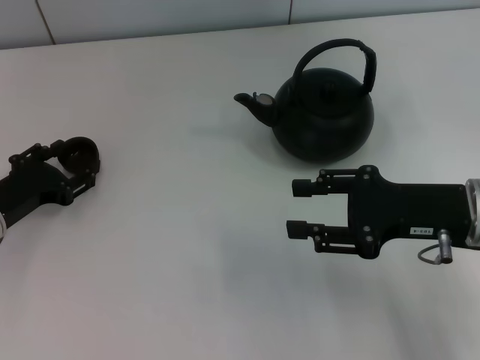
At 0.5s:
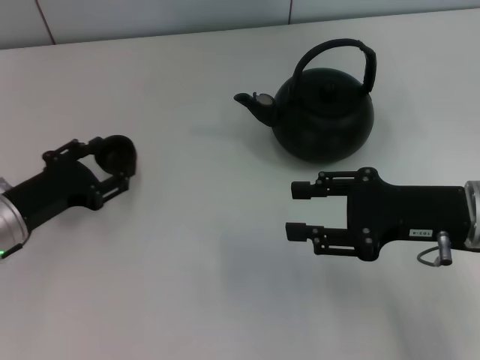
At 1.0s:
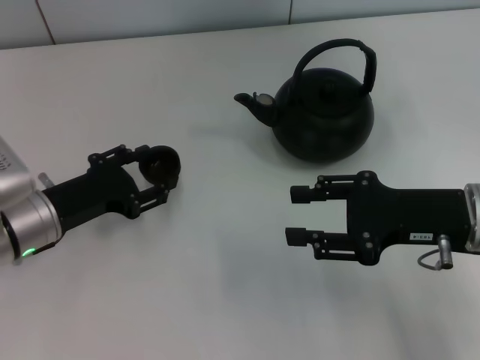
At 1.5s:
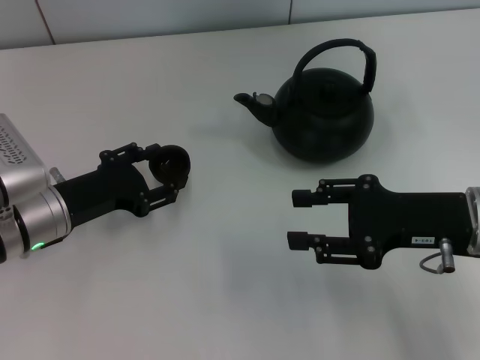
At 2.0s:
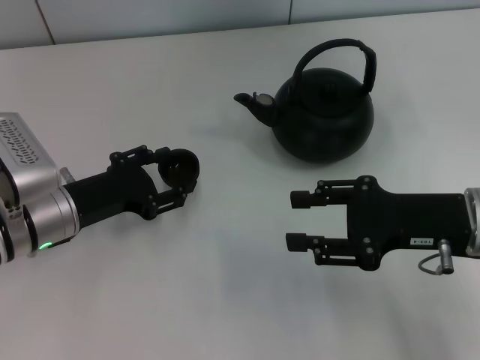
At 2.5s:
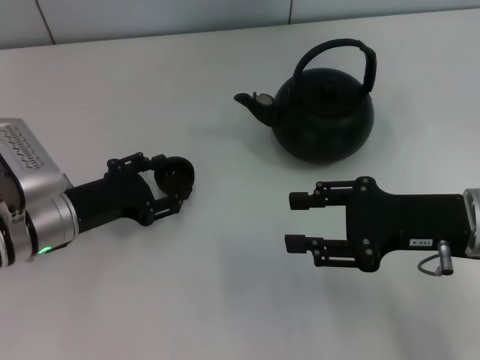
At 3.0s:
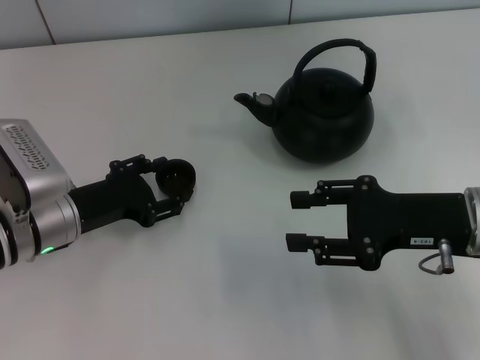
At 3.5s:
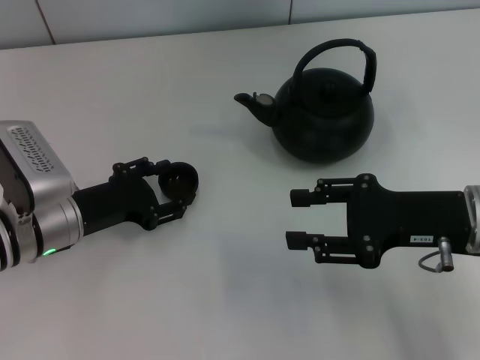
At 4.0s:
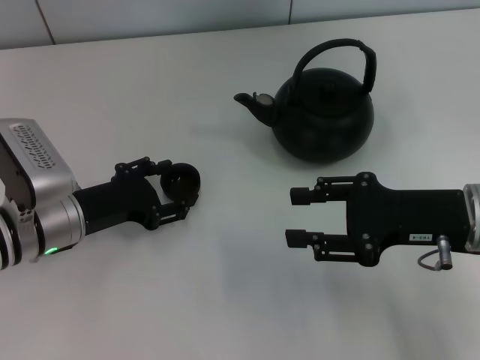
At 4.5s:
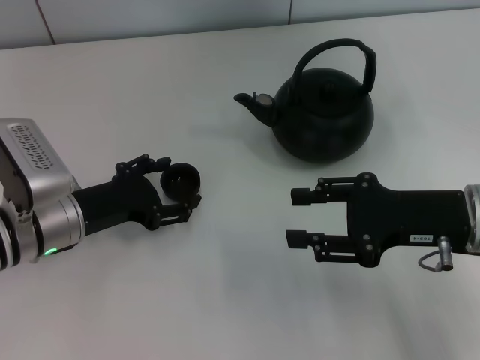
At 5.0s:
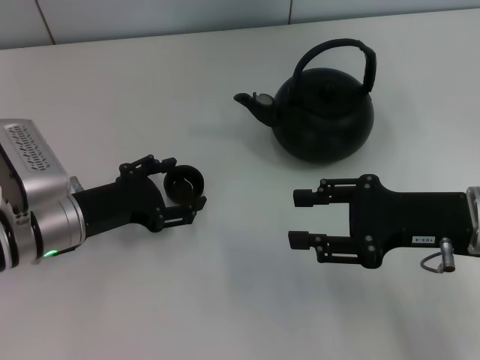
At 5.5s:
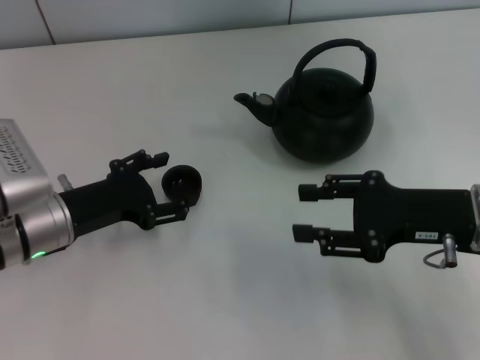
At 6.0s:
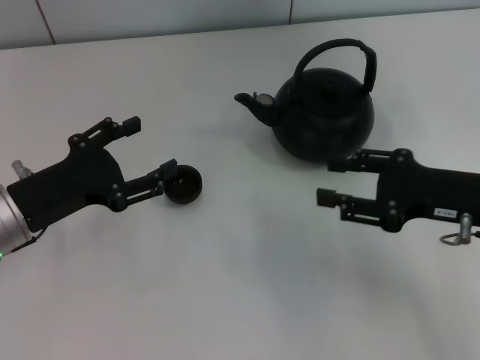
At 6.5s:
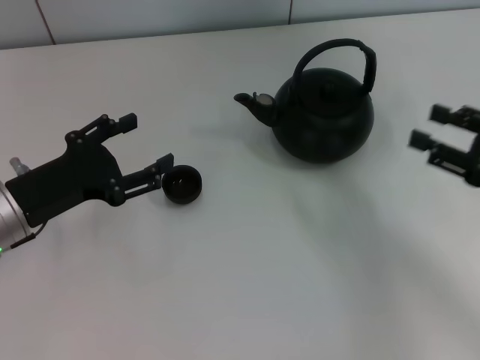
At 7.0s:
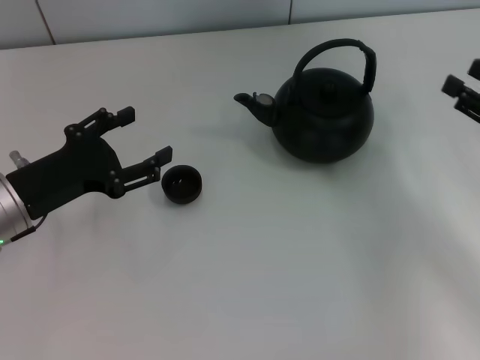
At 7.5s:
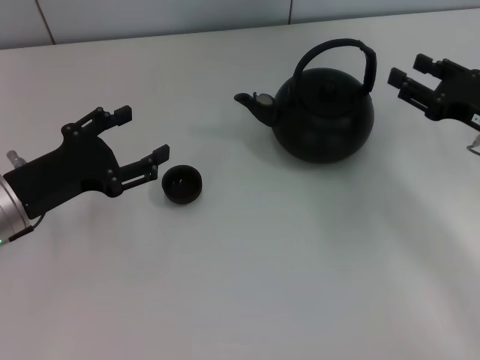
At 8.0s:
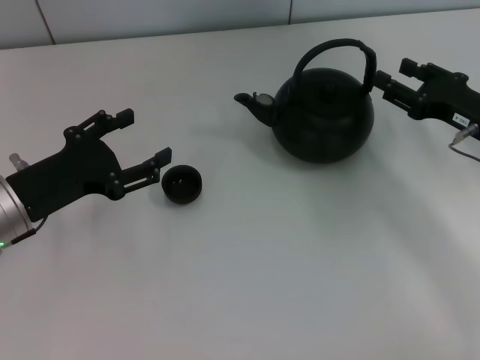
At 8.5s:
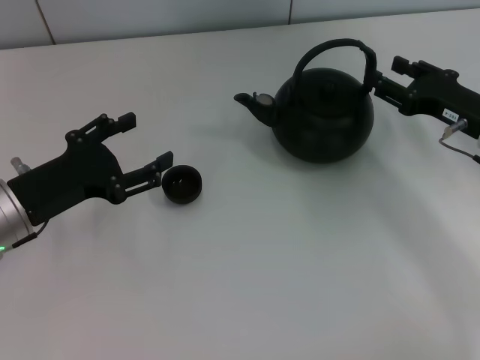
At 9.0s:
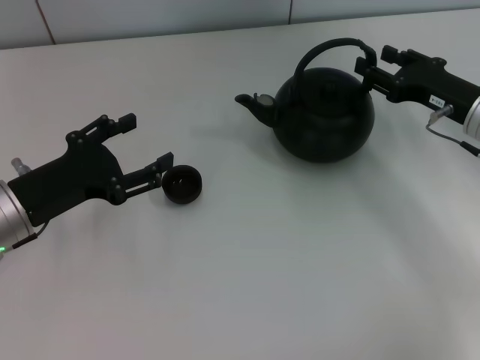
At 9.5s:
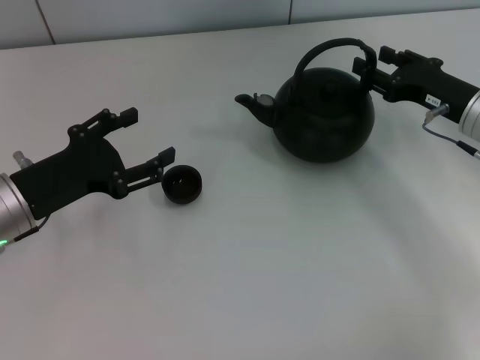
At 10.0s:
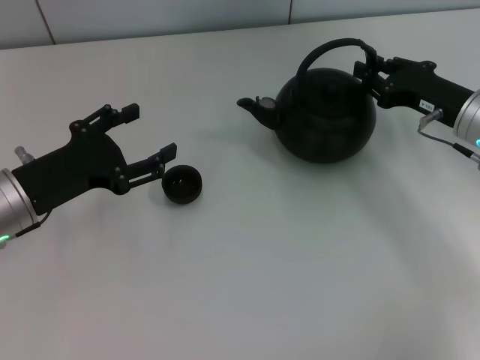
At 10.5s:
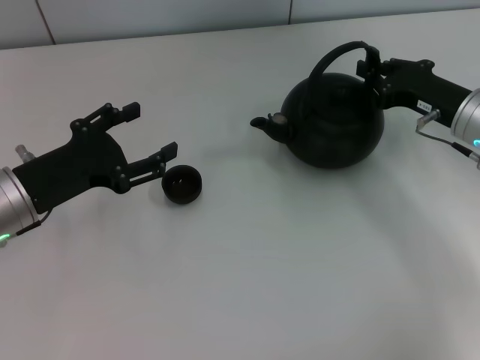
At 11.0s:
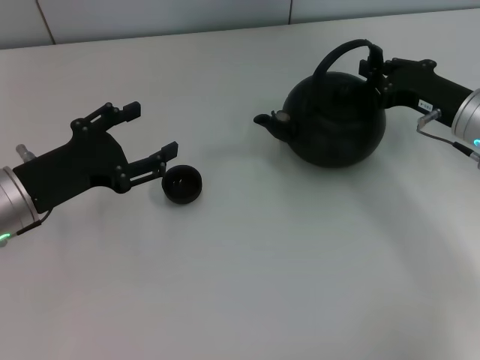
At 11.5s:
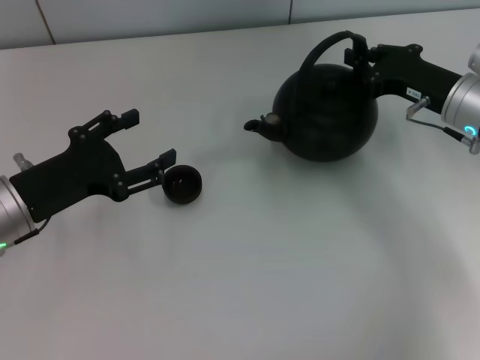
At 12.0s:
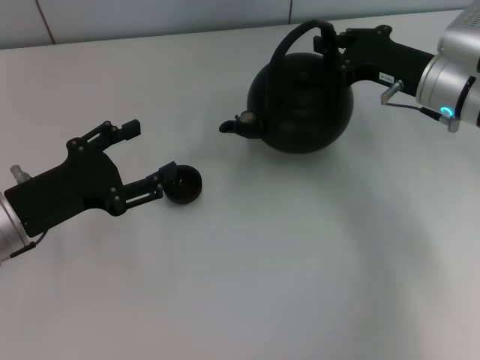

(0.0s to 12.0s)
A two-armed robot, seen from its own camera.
Task of the whole recording: Grasp the handle of the teapot with one hand and pour tea into the teacup.
Step, 1.0s - 6.5s: Place the teacup in the center of view with the left gripper.
0.0s - 2.0s: The left gripper goes about 5 cm to the right.
2.0s - 4.0s: Both grippers stay put.
4.0s - 6.0s: The left gripper moves roughly 5 cm, and opens.
6.0s - 8.0s: The right gripper heads forward, covering roughly 5 cm.
8.0s - 10.0s: The grippers stay close to where they were, moving slightly.
10.0s - 12.0s: The right gripper ends up some 5 cm from where it was, and closes.

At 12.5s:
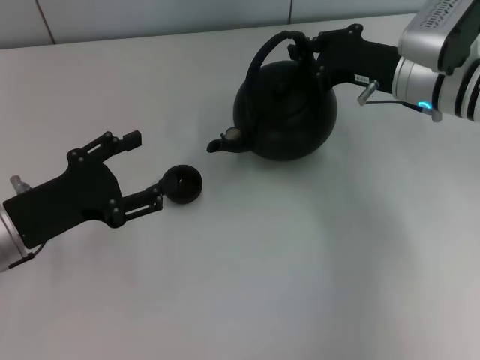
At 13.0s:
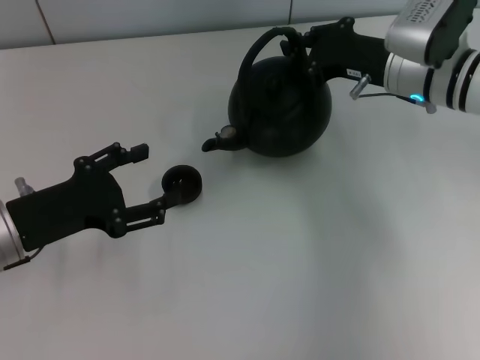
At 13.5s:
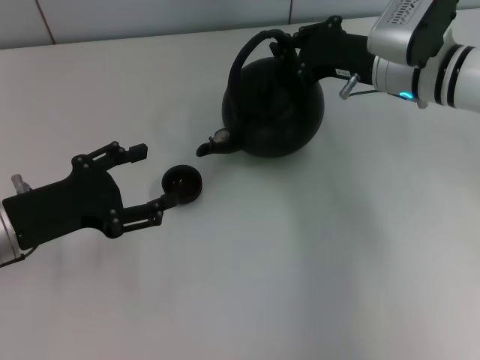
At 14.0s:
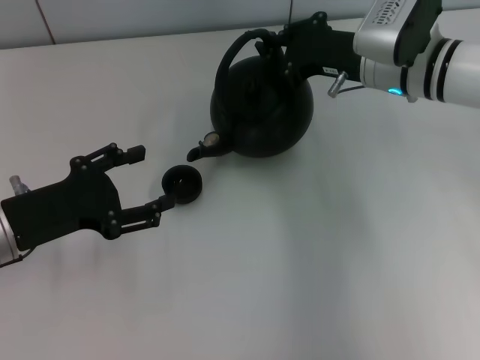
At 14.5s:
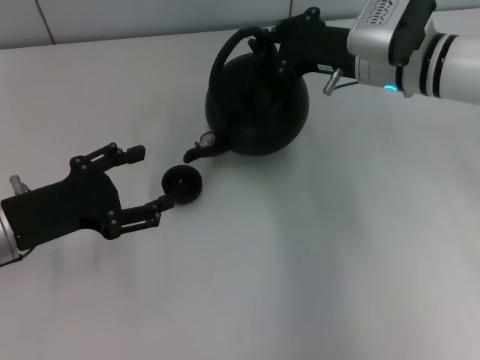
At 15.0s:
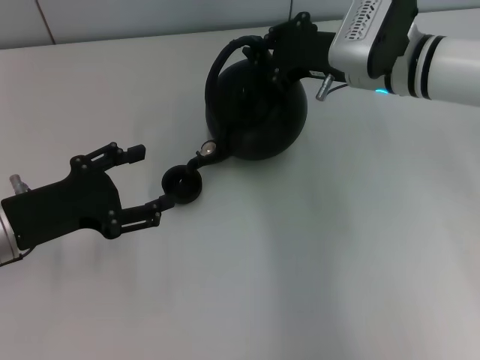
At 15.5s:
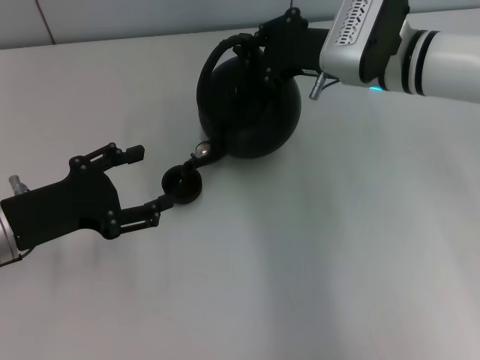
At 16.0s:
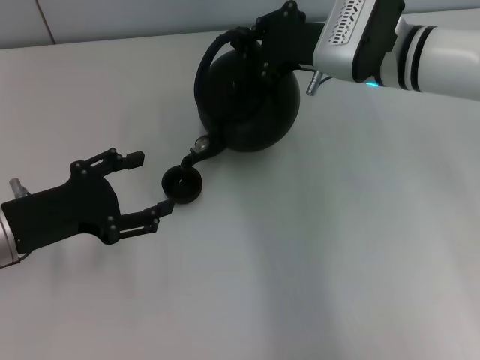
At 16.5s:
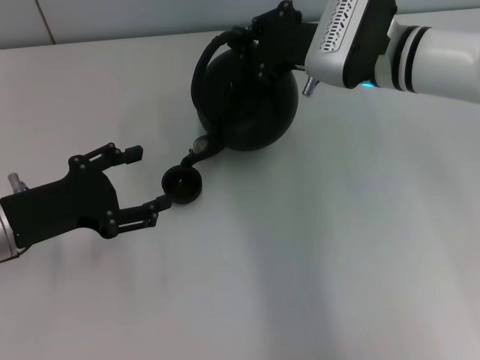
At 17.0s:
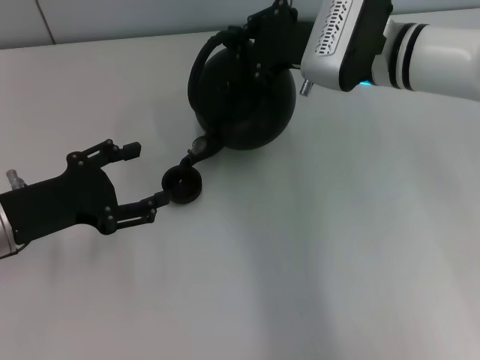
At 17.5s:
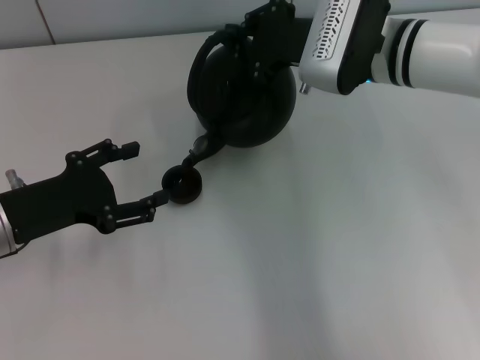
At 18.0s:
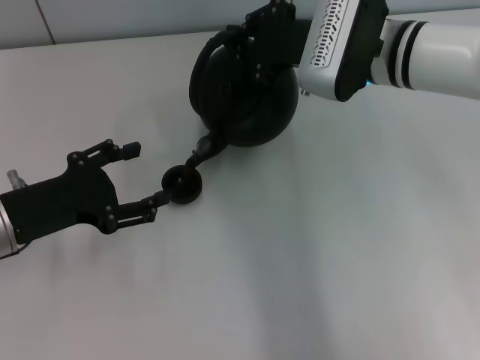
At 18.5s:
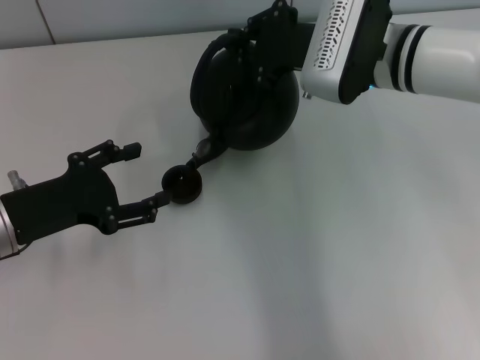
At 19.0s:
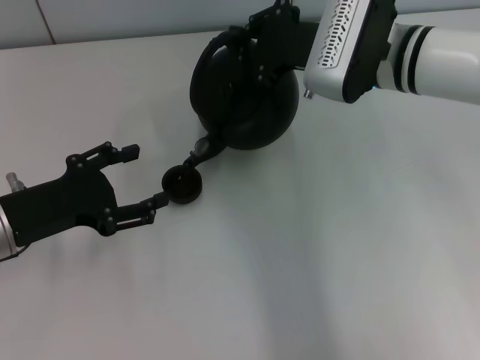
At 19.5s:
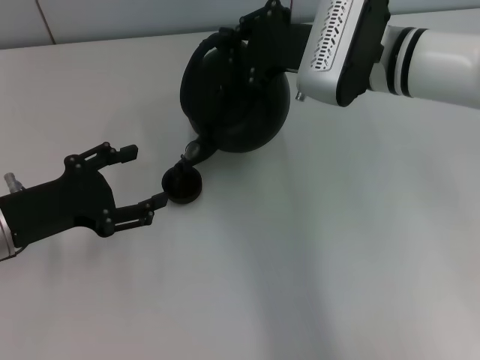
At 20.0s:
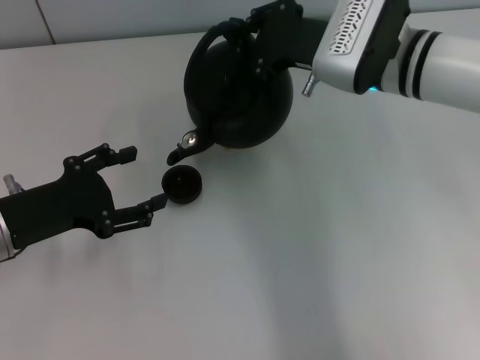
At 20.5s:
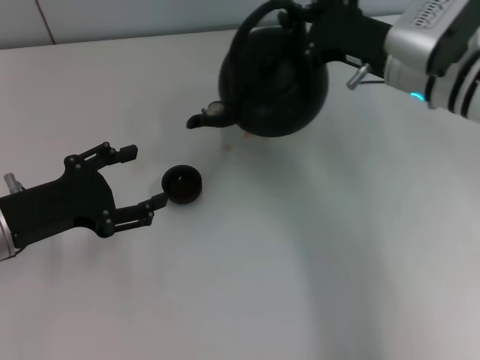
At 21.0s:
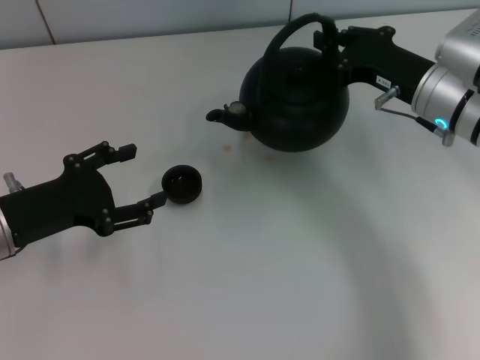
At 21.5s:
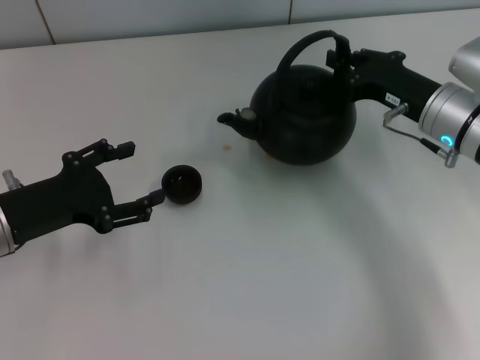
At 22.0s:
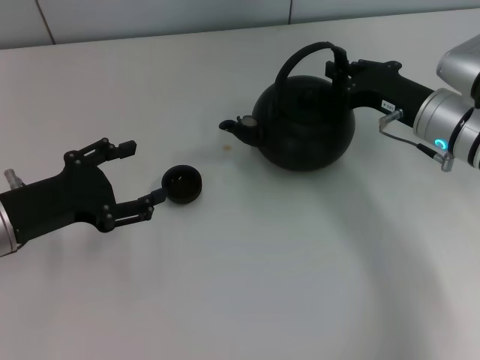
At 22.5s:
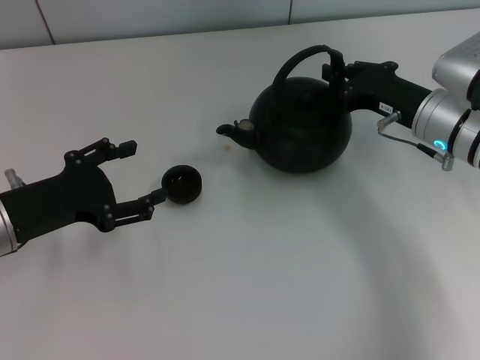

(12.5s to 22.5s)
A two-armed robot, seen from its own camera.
Task of the whole recording: Grasp the handle of the teapot with one hand and pour tea into the teacup.
12.5s - 14.5s: The grippers stay close to where they were, moving slightly.
14.5s - 16.5s: There are only small adjustments of the grippers.
16.5s - 18.5s: There are only small adjustments of the grippers.
18.5s - 20.5s: The right gripper shifts about 5 cm to the right.
20.5s - 22.5s: The right gripper goes approximately 5 cm downward.

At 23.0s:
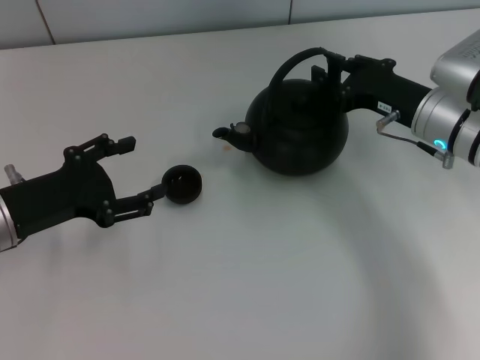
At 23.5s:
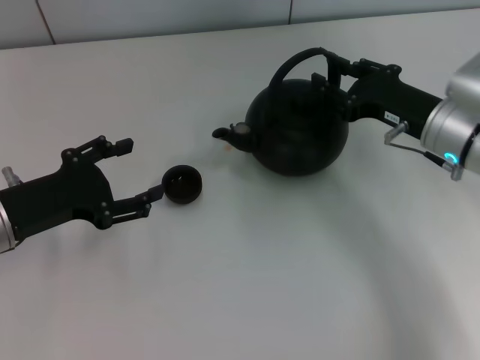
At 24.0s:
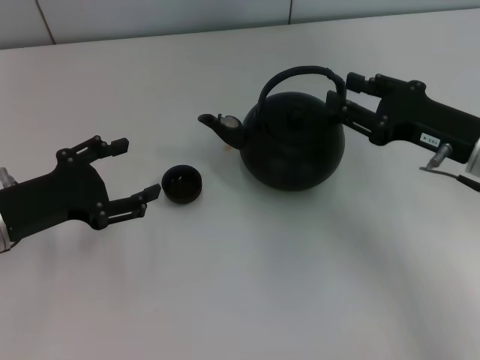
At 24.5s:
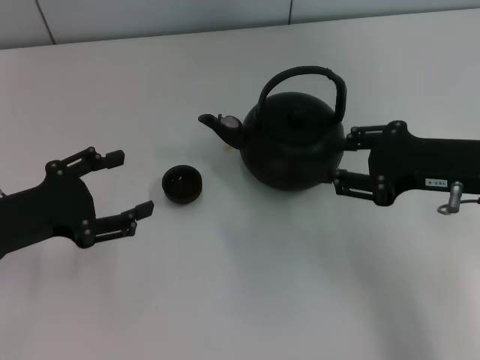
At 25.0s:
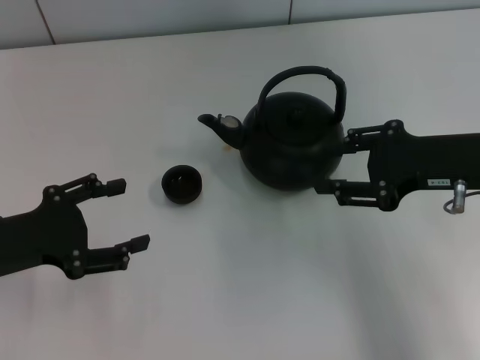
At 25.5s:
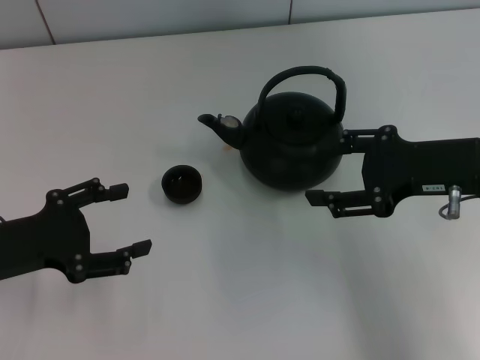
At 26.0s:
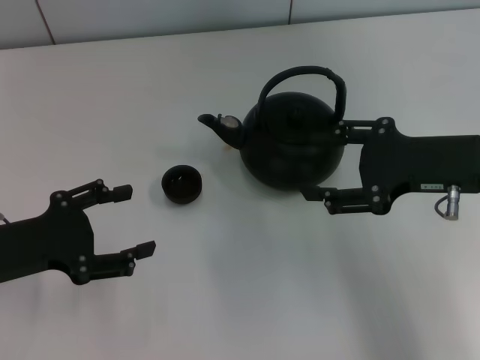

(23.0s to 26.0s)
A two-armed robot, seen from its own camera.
Task of the whole recording: Grasp the handle of the teapot with one hand and pour tea into the teacup.
Step, 23.0s - 25.0s: Put down the teapot with the right gripper.
23.0s - 24.5s: The right gripper is displaced backward and upward by some 10 cm, and opens.
24.5s - 26.0s: The right gripper opens.
